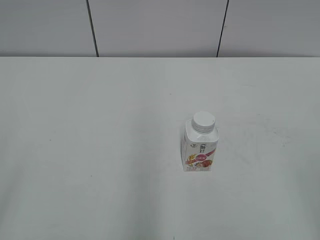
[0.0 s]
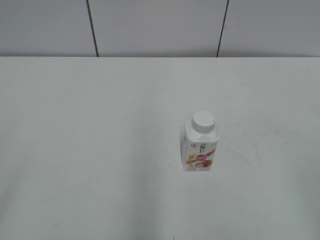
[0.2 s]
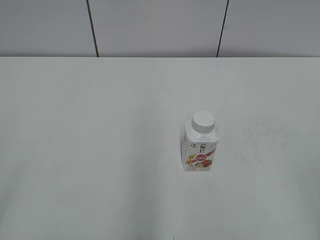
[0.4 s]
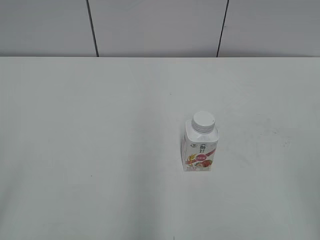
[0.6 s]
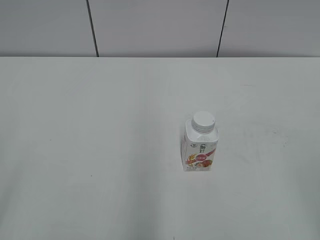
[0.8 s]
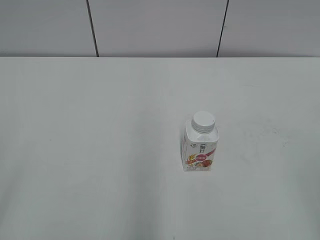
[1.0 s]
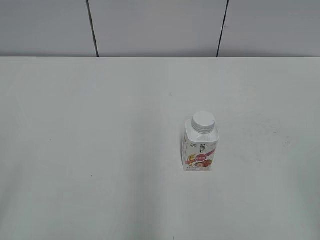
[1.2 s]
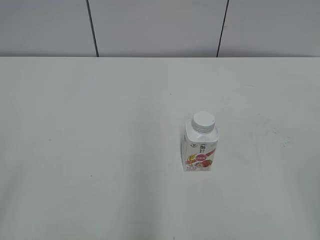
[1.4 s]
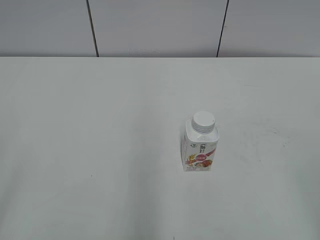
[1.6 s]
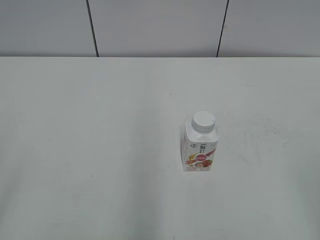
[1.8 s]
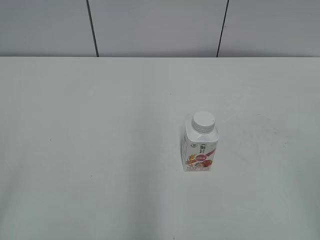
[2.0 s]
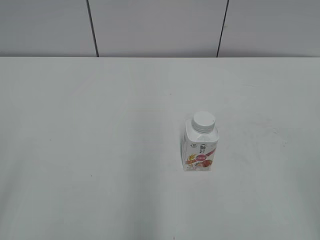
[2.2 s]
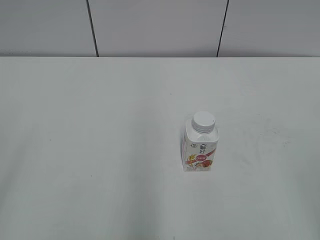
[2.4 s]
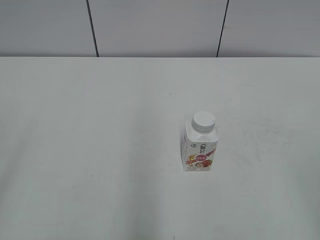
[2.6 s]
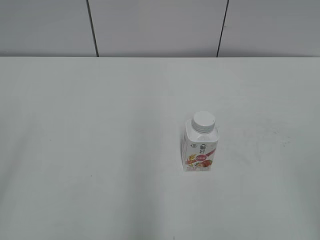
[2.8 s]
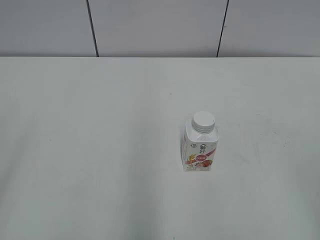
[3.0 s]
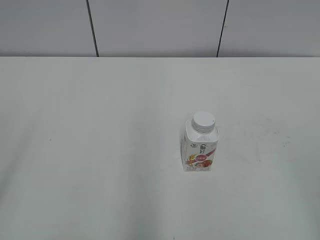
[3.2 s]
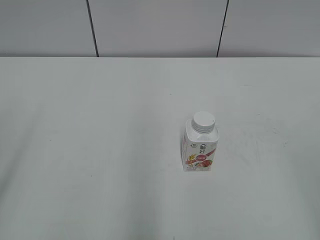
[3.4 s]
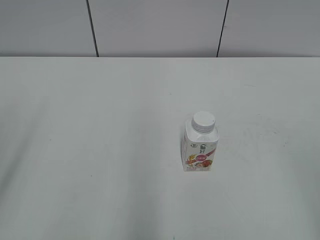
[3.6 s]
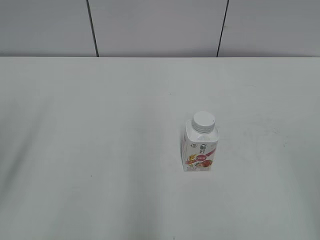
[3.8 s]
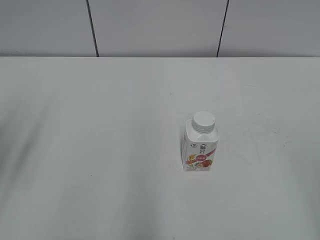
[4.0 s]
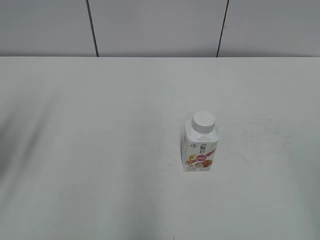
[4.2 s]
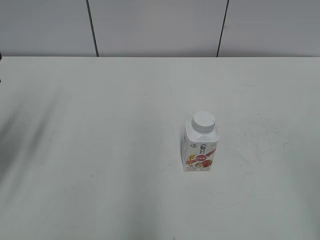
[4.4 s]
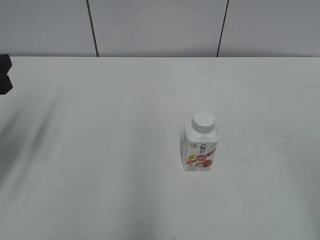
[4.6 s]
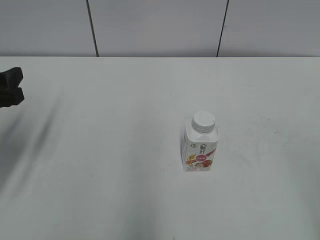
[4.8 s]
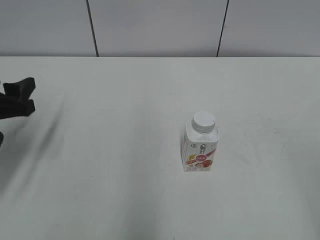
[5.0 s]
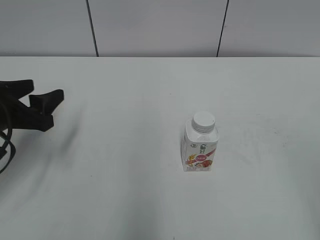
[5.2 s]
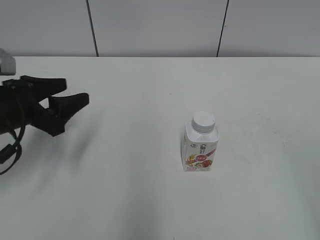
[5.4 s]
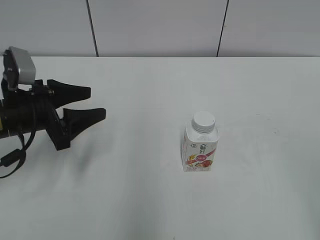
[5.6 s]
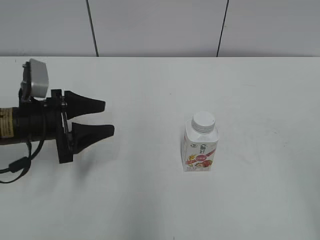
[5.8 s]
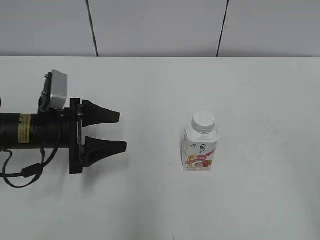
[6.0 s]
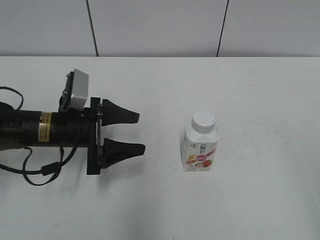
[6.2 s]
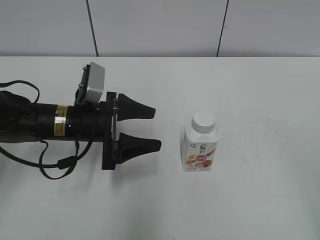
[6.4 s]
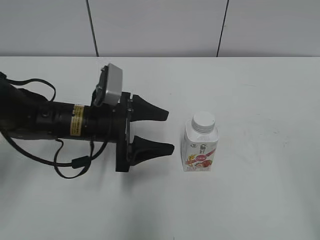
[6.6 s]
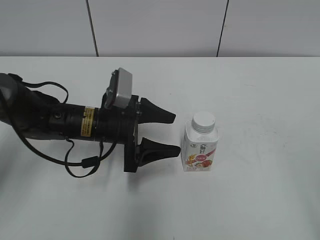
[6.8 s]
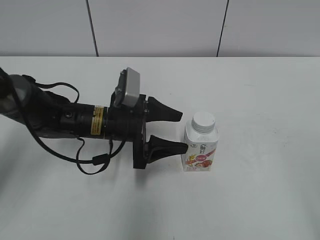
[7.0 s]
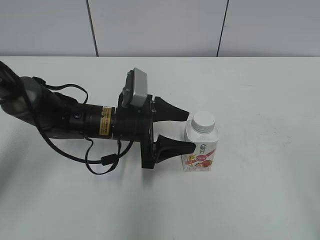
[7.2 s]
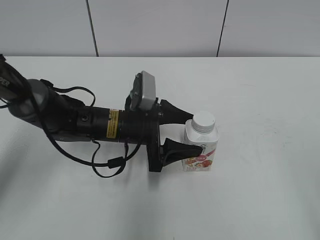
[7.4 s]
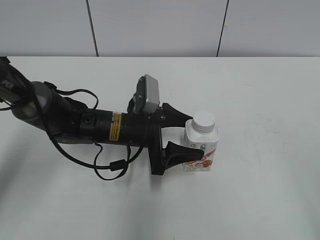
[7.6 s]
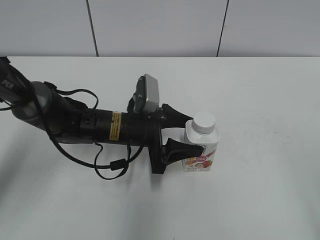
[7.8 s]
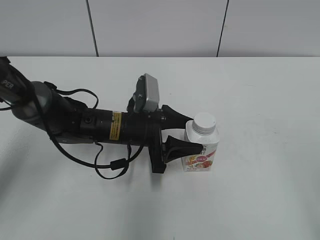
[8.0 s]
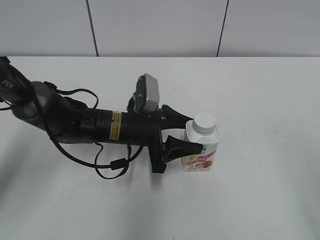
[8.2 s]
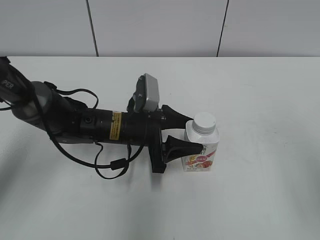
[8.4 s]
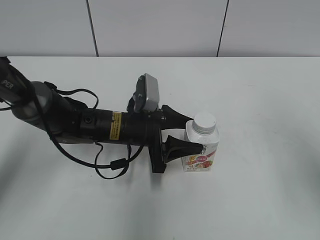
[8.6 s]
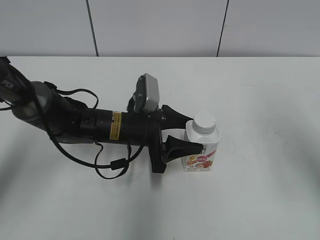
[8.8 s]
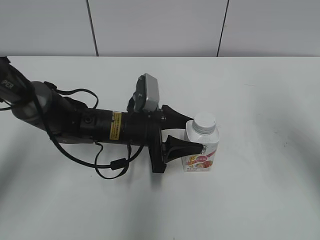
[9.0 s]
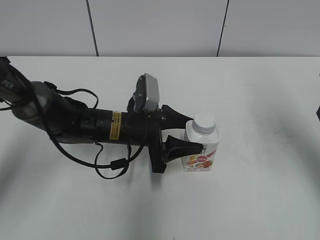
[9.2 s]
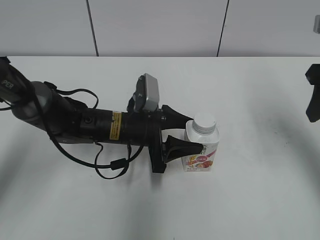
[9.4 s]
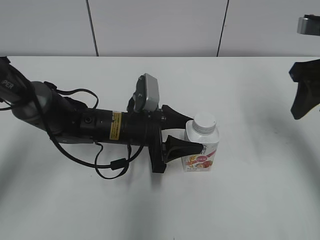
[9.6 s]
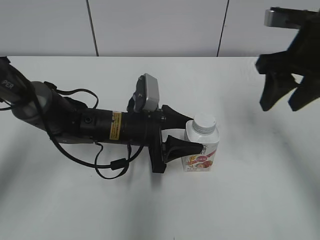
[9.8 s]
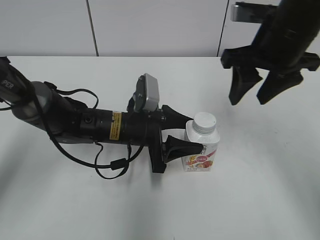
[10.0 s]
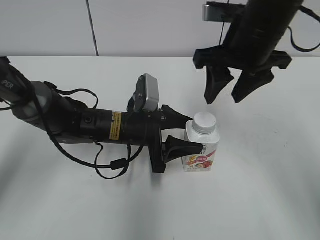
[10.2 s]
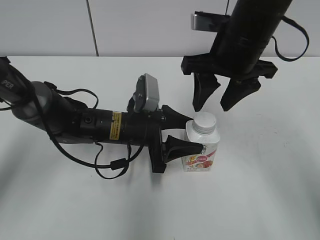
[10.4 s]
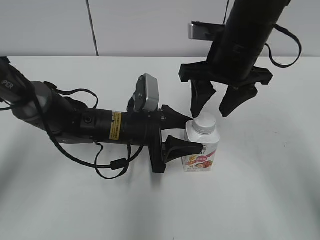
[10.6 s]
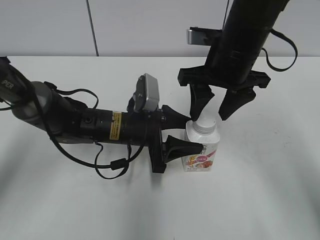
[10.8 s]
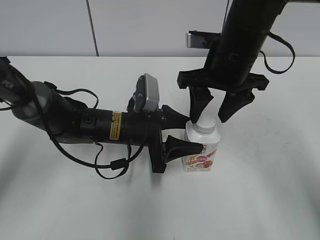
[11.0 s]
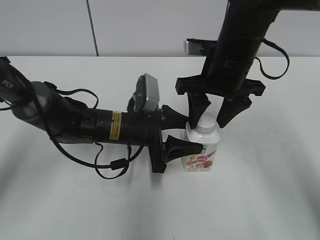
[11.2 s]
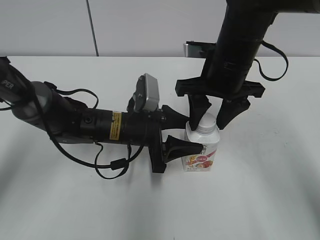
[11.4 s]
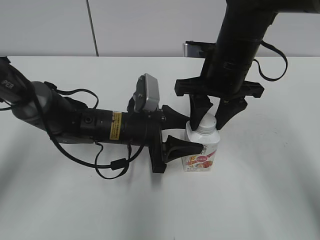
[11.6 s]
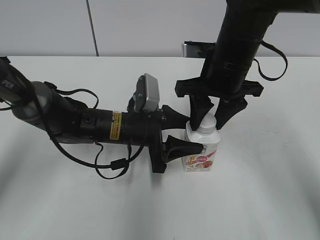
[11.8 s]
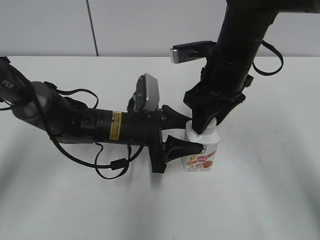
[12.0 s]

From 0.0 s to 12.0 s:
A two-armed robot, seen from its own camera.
Step, from 0.0 s to 8.2 s: Grab the Yili Changqing with the left hand.
From 3.0 s to 4.4 s: The left gripper heads forward and downward, covering some 20 cm.
From 4.4 s to 6.0 s: The left gripper travels downward, to the right and forward by some 15 cm.
From 6.0 s to 7.6 s: The left gripper goes about 15 cm to the right.
From 7.6 s to 9.0 s: The left gripper closes up, while the right gripper shifts approximately 20 cm forward.
From 9.0 s to 10.4 s: The right gripper travels to the left and forward by approximately 20 cm.

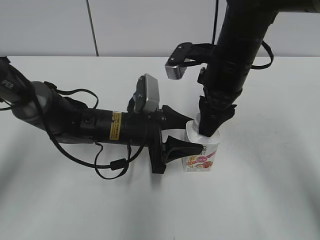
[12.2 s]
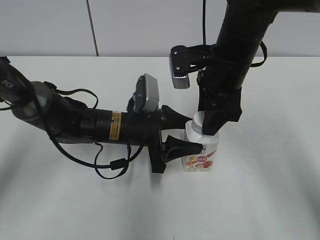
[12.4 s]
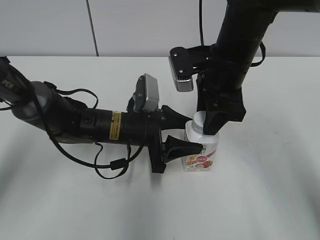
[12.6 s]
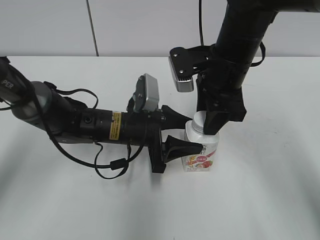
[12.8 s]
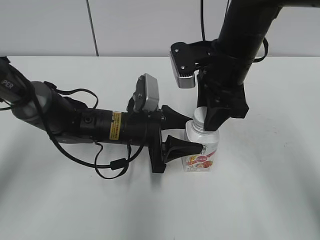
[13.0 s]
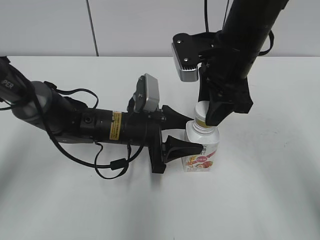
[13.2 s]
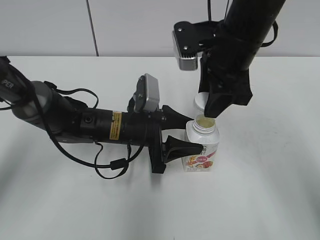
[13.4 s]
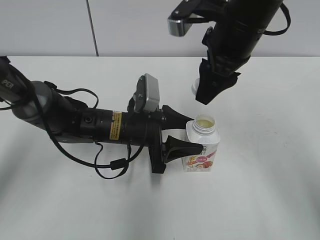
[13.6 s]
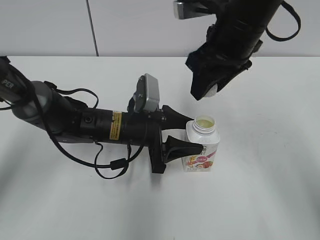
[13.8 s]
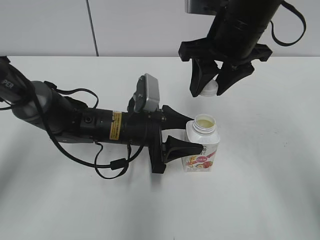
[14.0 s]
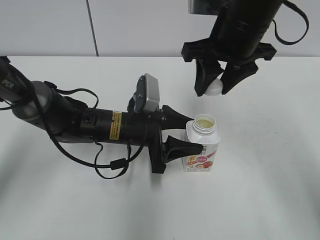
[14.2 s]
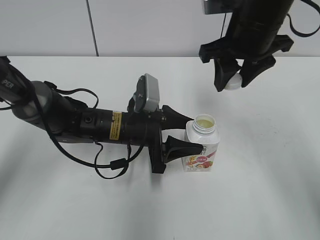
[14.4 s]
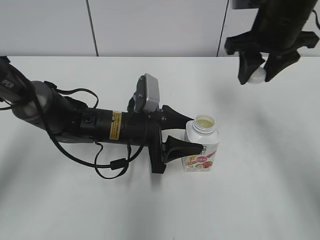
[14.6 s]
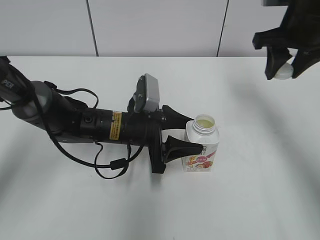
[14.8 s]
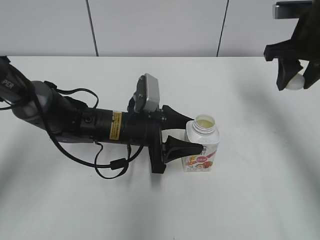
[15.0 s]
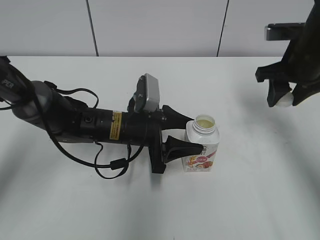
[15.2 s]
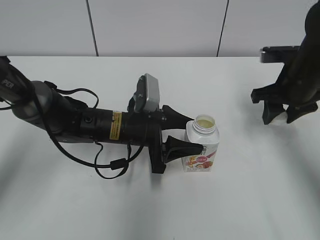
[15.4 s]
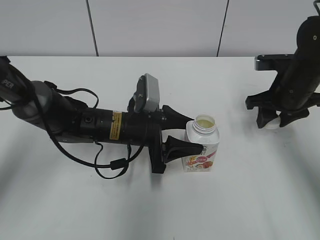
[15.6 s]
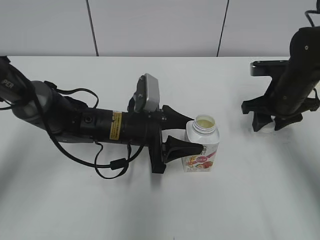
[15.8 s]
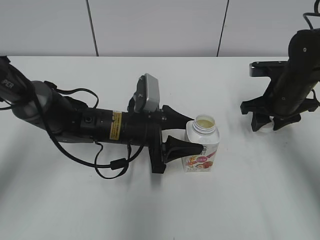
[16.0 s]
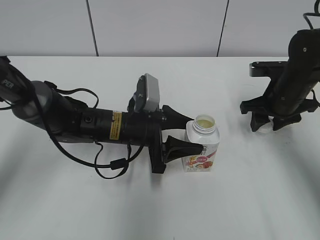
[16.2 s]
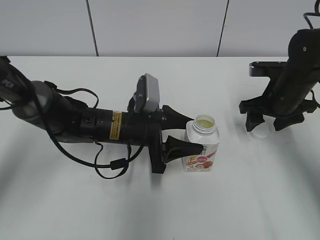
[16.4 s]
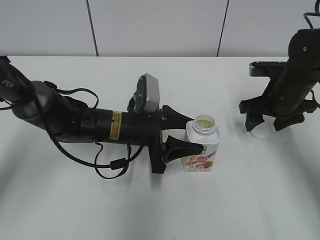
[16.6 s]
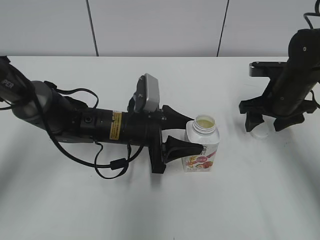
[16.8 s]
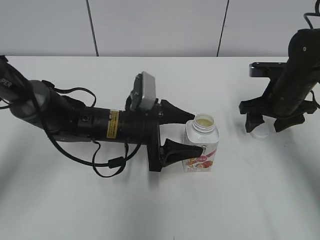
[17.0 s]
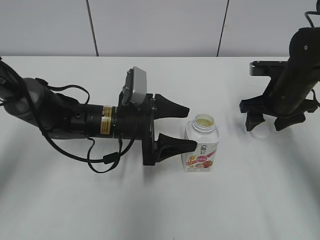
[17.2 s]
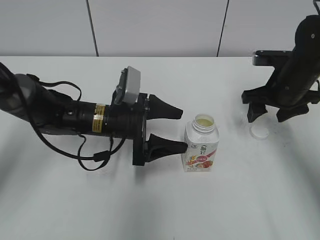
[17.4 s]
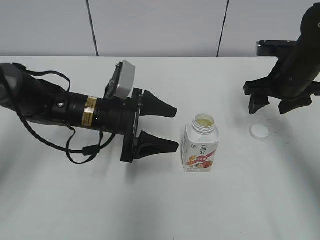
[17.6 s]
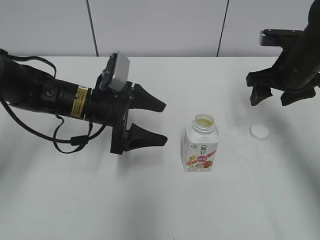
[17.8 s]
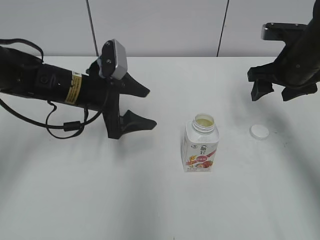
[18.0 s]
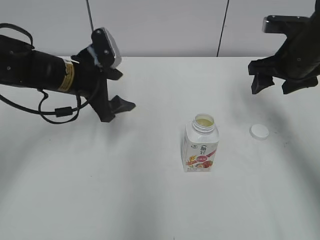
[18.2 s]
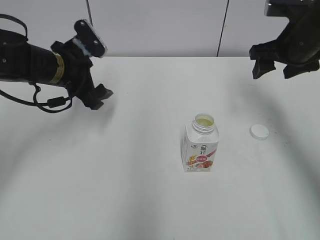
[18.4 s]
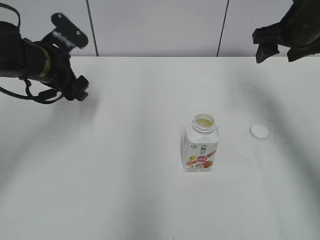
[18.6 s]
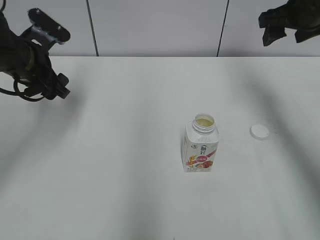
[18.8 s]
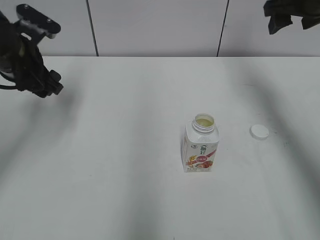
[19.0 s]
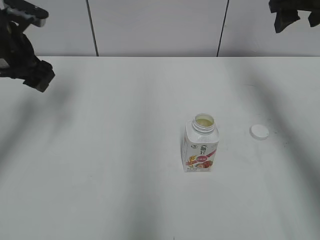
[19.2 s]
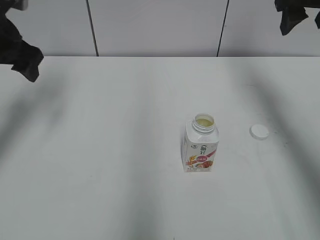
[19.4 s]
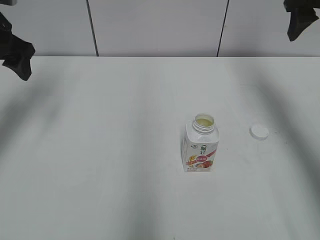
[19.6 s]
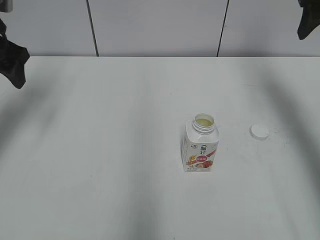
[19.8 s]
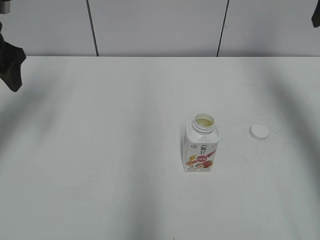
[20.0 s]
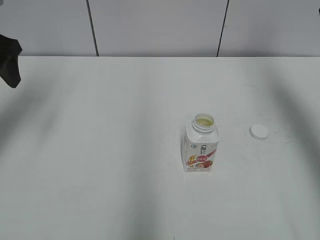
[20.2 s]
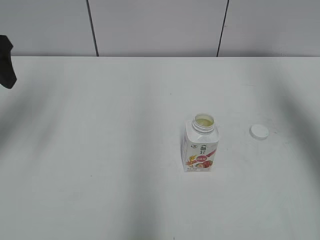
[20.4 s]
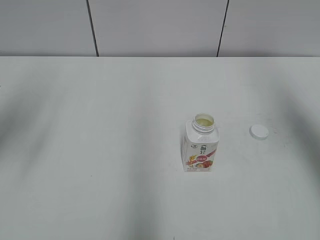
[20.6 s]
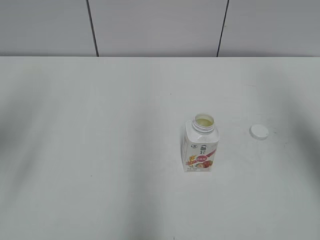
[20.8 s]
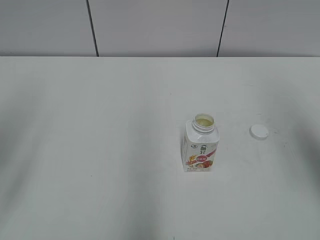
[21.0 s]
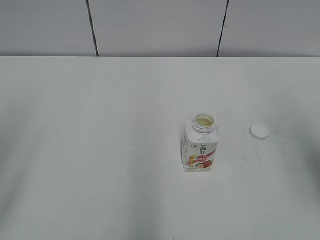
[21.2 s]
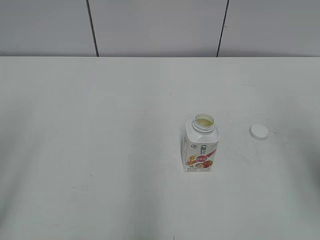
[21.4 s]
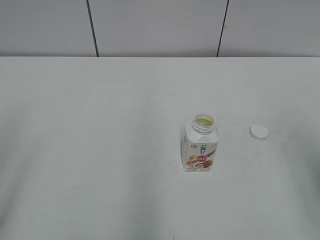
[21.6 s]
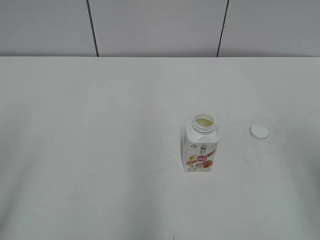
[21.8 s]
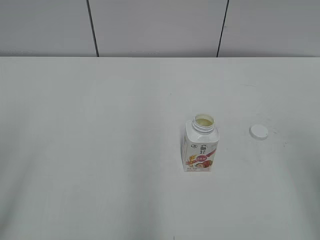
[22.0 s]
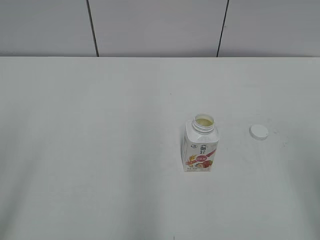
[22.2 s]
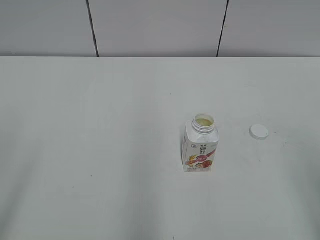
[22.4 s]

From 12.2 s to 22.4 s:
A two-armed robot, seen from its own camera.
Step, from 13.2 s to 16.4 s: Place the bottle cap on the right.
Step, from 16.6 s to 17.0 s: Place the Yili Changqing with the left hand.
From 12.2 s to 13.6 s: The right gripper travels upward by roughly 5 cm.
From 13.6 s to 15.2 s: The right gripper heads to the right, covering about 15 cm.
From 15.2 s to 16.6 s: The right gripper travels downward by about 10 cm, and opens.
From 16.6 s to 18.0 s: The right gripper heads upward, covering some 5 cm. Meanwhile the left gripper shifts some 10 cm to the left and upward, and opens its fingers.
From 18.0 s to 19.4 s: The right gripper moves upward, some 10 cm; the left gripper moves to the left and upward, about 20 cm.
From 19.4 s to 21.0 s: Both grippers move backward, some 20 cm.
From 21.0 s to 22.4 s: The right gripper shifts roughly 15 cm backward and downward.
